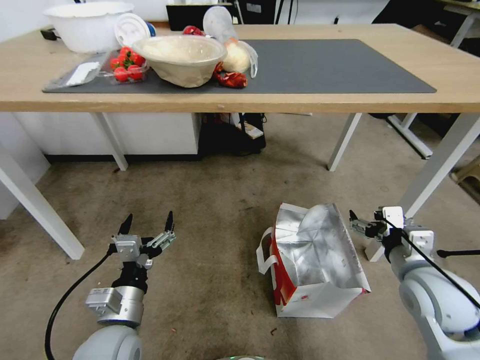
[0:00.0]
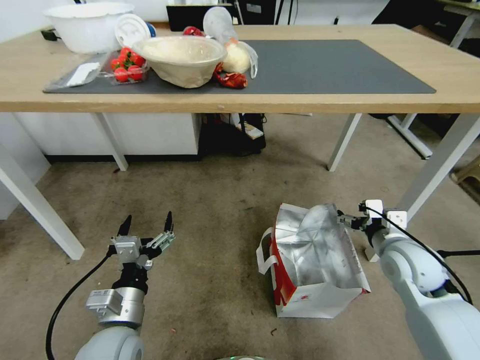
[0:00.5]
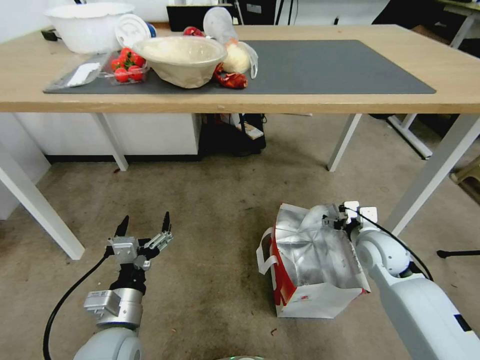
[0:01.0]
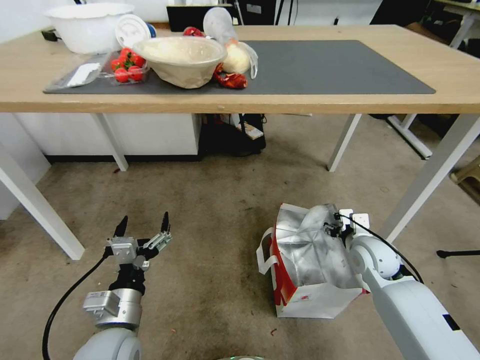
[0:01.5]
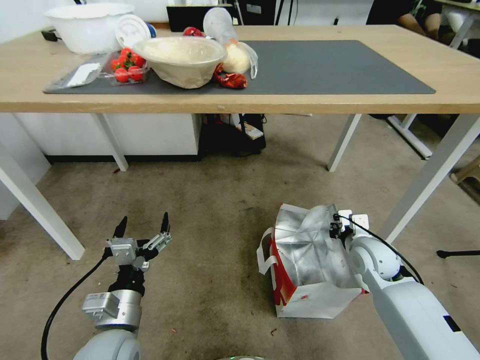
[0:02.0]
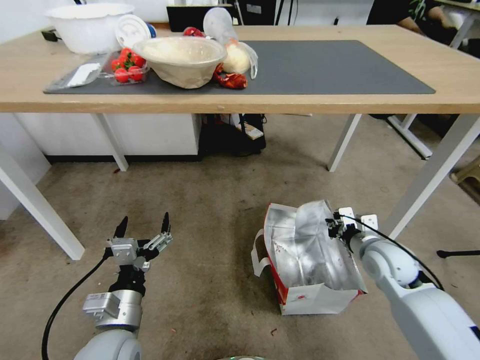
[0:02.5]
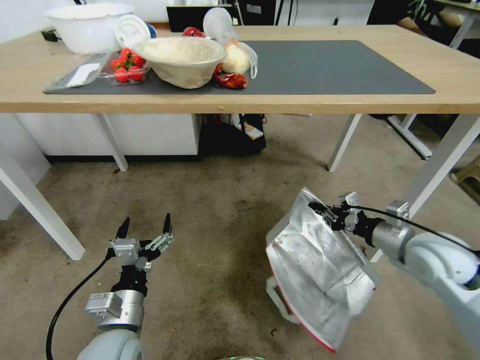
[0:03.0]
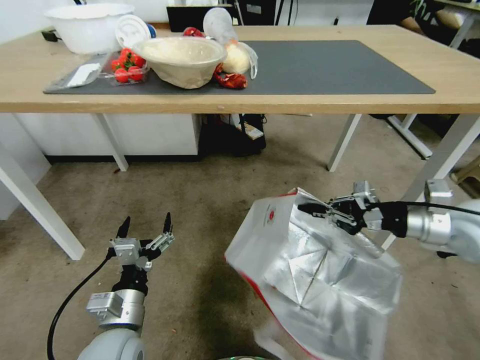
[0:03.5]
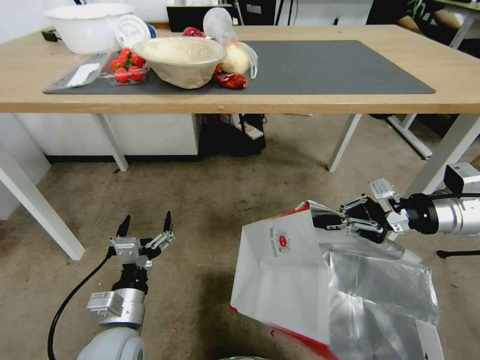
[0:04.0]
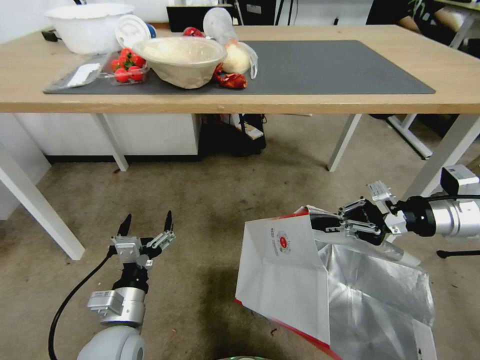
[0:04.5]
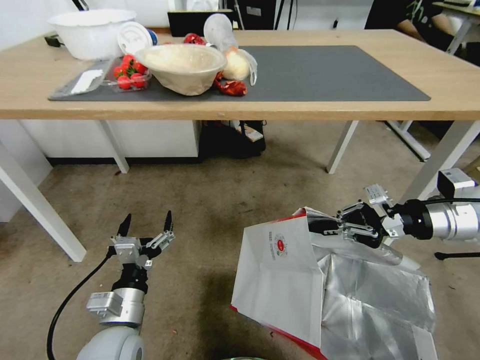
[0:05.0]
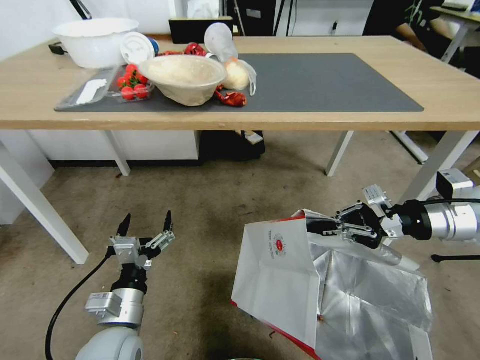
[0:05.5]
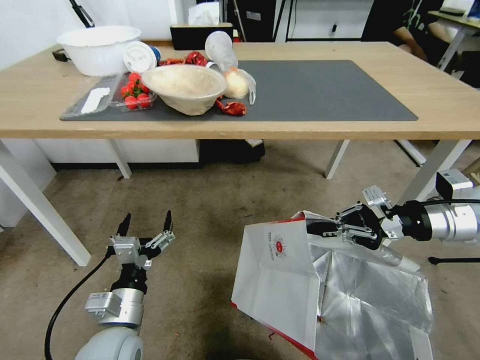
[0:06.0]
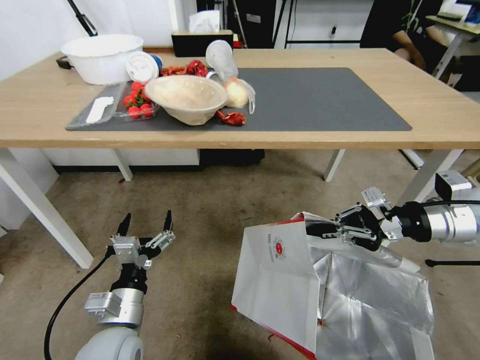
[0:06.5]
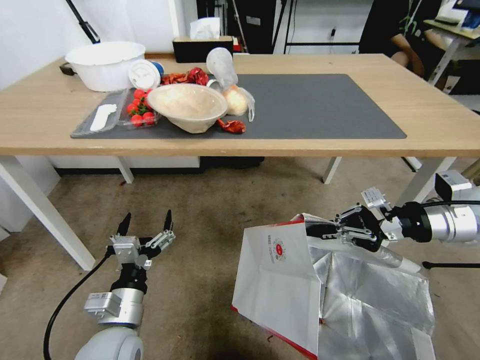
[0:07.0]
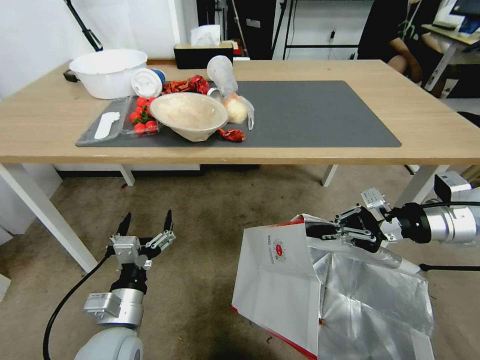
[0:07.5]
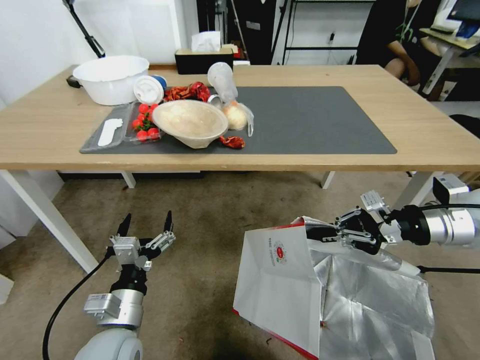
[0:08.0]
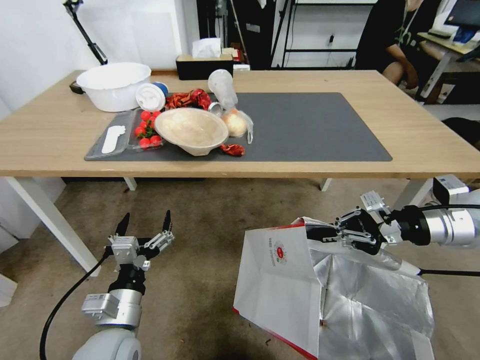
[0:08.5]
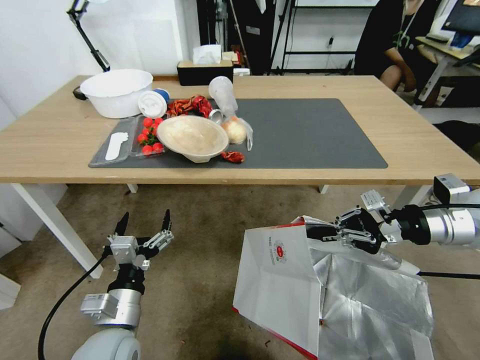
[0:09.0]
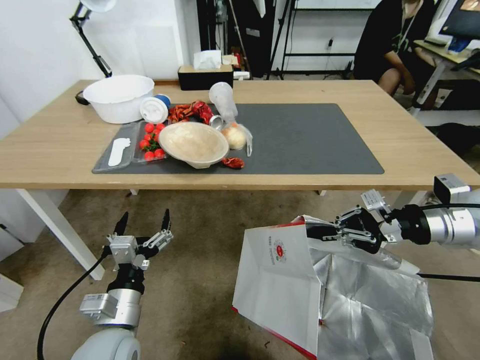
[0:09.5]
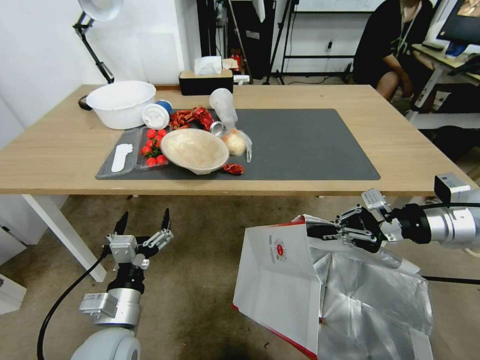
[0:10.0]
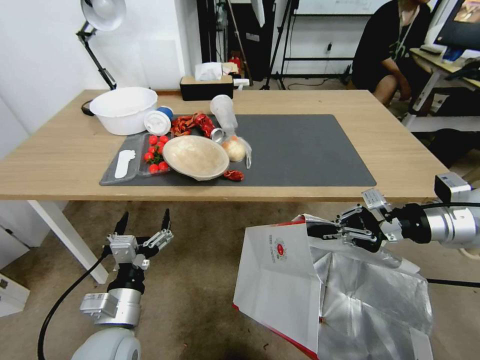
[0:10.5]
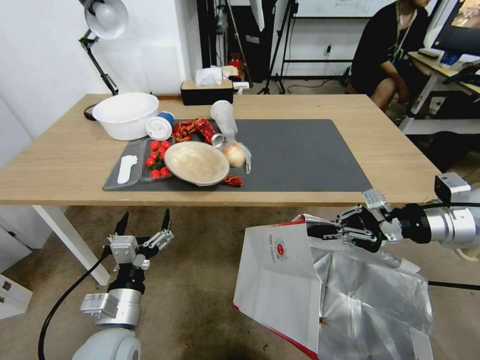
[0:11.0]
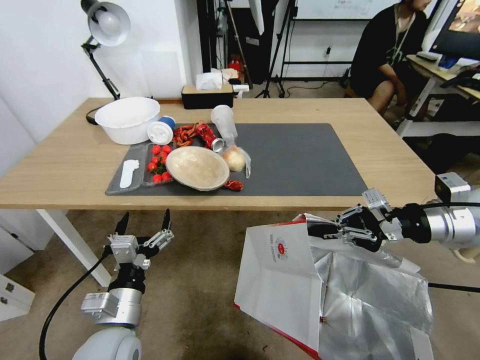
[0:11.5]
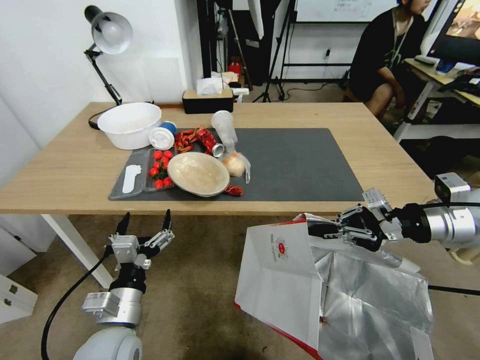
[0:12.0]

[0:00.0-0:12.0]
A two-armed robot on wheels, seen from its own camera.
Task of the whole recording: Pick up the food delivery bag from the floor and place it on the table.
0:00.0 to 0:02.0: The right gripper goes roughly 15 cm forward and downward, and closes.
0:02.0 to 0:04.0: The right gripper is displaced upward and to the right by roughly 25 cm.

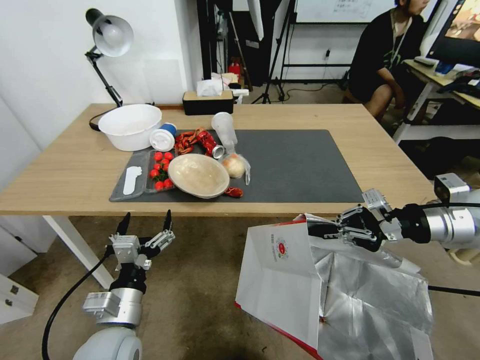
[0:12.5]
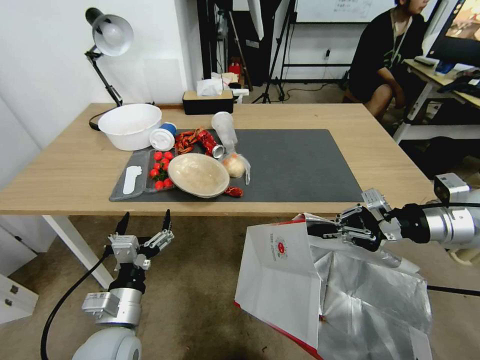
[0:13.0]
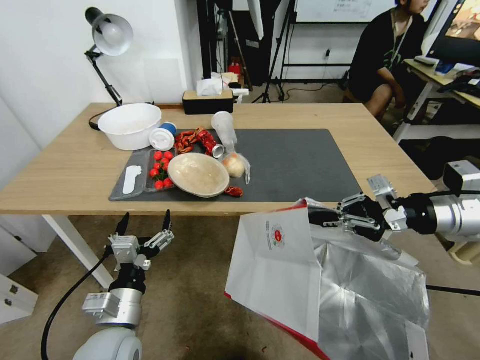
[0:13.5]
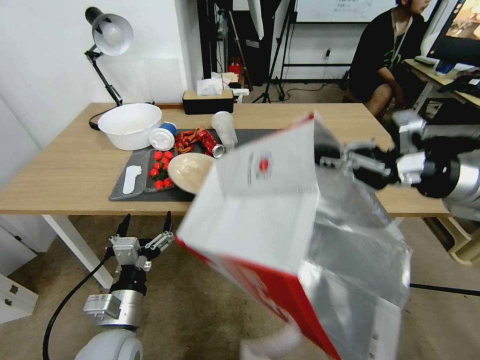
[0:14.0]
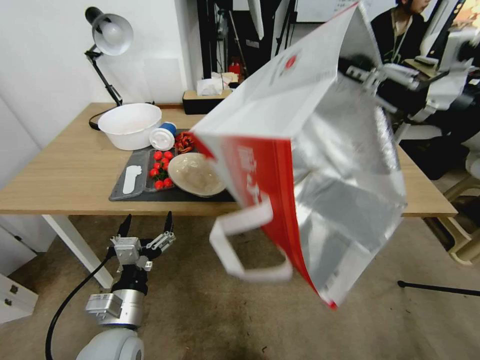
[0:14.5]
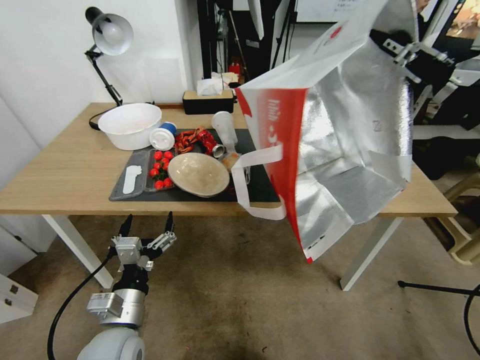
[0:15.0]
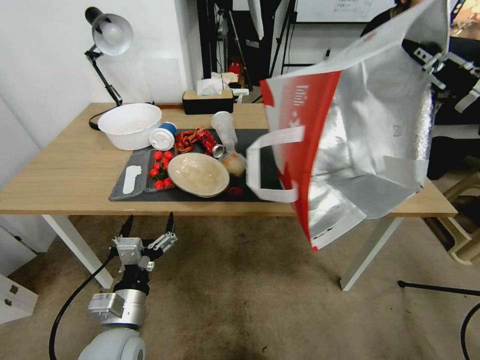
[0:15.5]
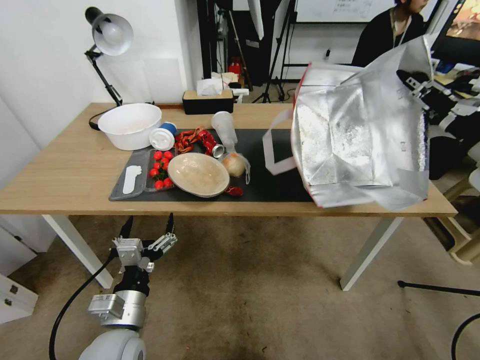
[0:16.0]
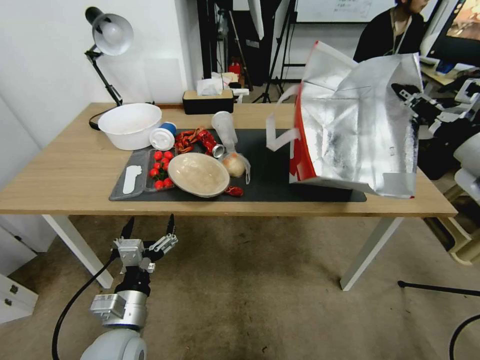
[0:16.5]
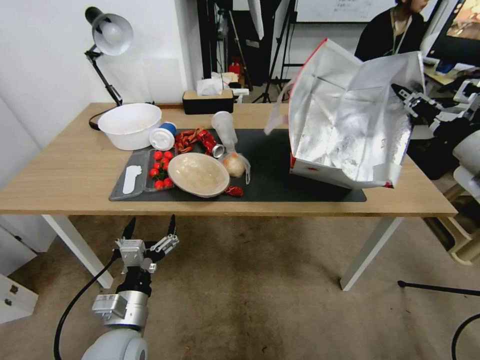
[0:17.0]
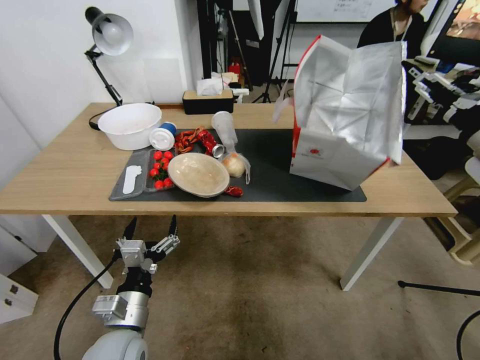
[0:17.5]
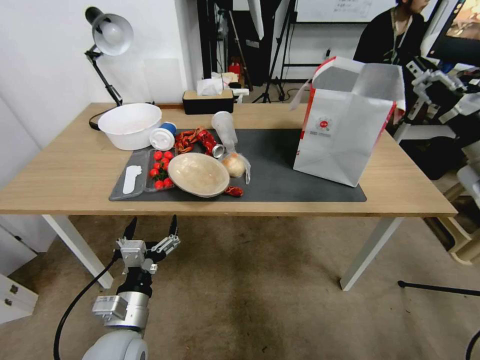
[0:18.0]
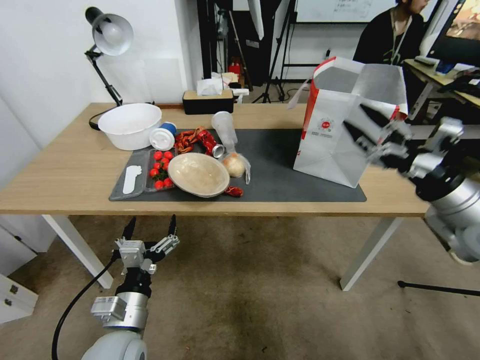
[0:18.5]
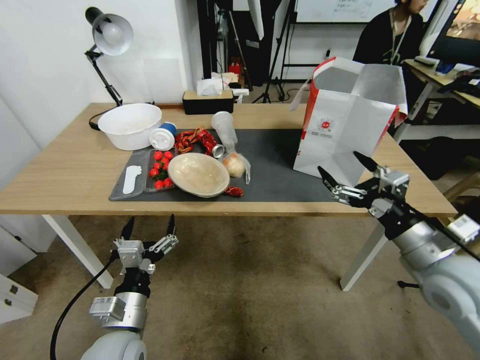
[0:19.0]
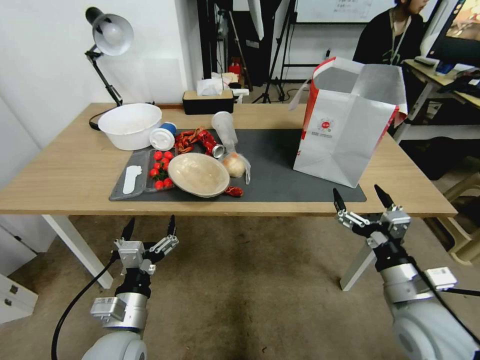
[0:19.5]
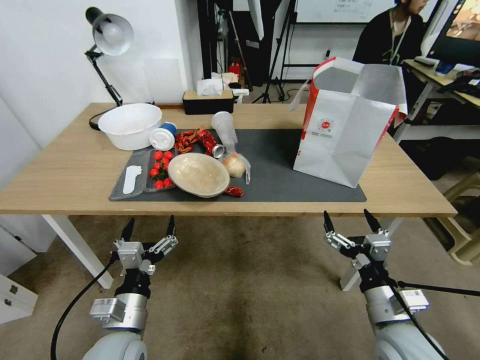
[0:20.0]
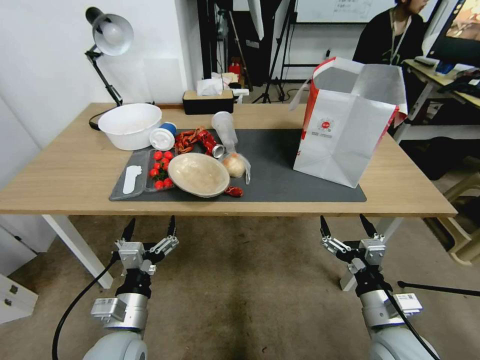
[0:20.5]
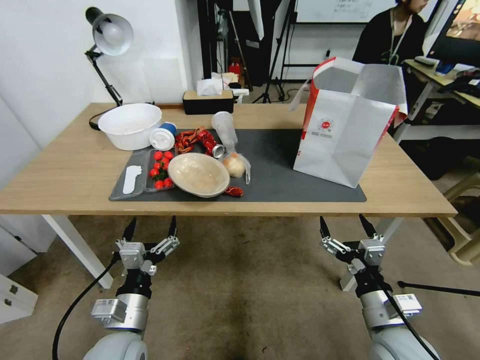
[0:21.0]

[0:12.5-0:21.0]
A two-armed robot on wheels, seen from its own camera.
Task of the whole recording: Pick up the food delivery bag from the floor and place it on the table.
0:12.5 to 0:14.5: The right gripper moves upward, roughly 15 cm.
0:14.5 to 0:16.5: The right gripper moves downward and to the right, about 10 cm.
0:16.5 to 0:19.0: The right gripper is displaced downward, backward and to the left by about 15 cm, and opens up.
0:19.0 to 0:21.0: The right gripper shifts about 15 cm downward, backward and to the left.
